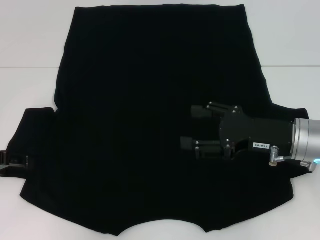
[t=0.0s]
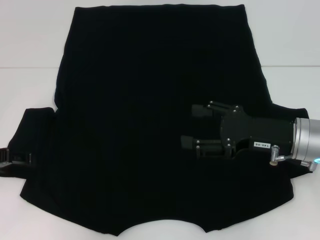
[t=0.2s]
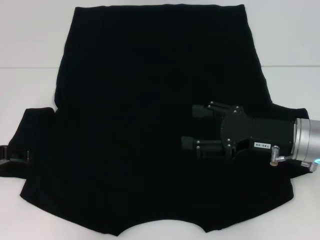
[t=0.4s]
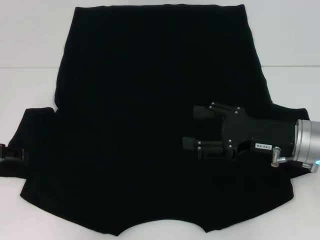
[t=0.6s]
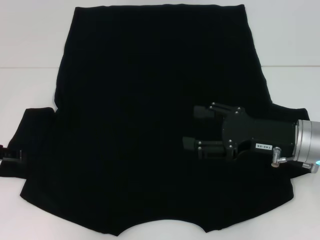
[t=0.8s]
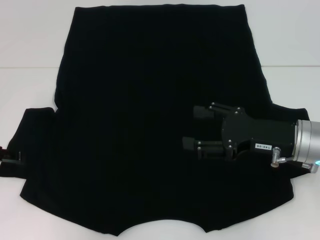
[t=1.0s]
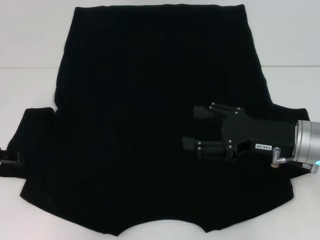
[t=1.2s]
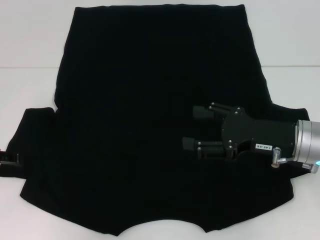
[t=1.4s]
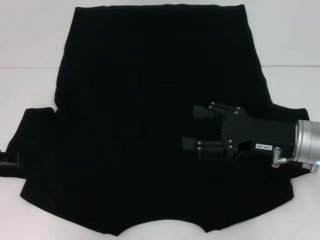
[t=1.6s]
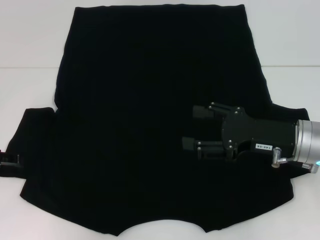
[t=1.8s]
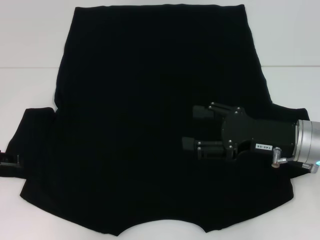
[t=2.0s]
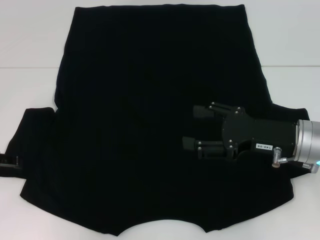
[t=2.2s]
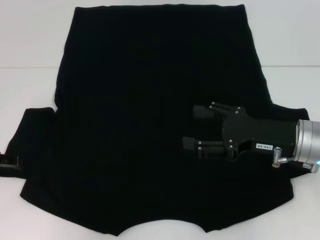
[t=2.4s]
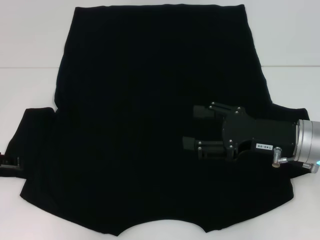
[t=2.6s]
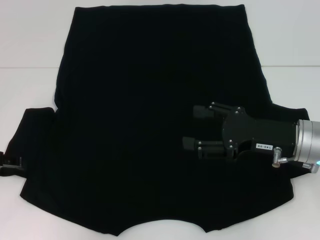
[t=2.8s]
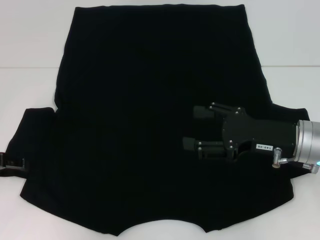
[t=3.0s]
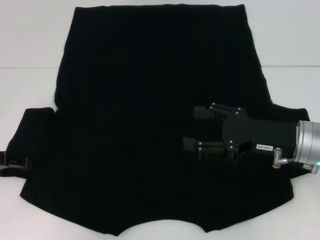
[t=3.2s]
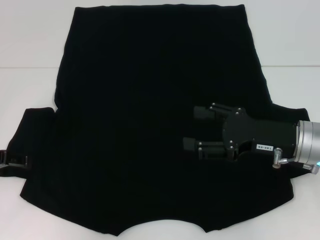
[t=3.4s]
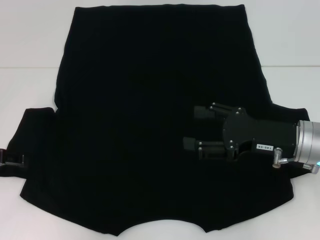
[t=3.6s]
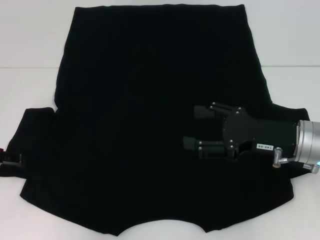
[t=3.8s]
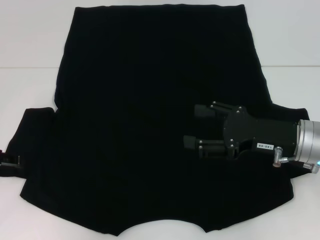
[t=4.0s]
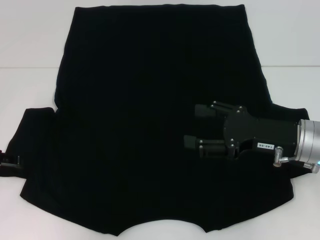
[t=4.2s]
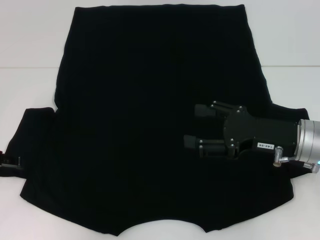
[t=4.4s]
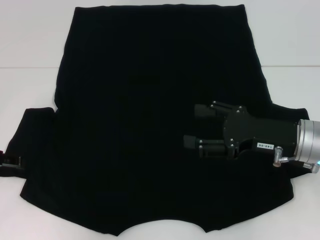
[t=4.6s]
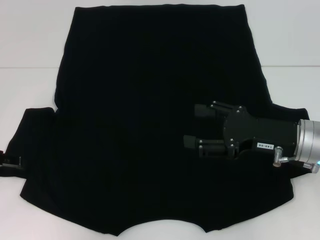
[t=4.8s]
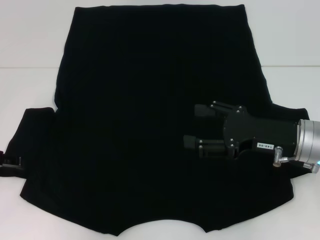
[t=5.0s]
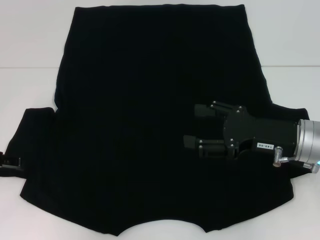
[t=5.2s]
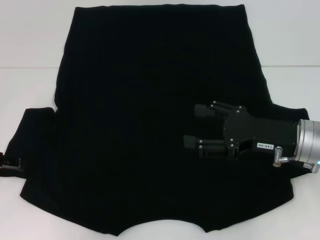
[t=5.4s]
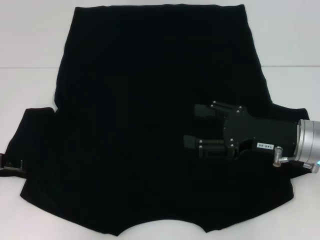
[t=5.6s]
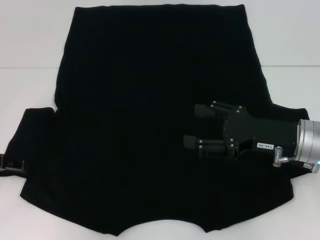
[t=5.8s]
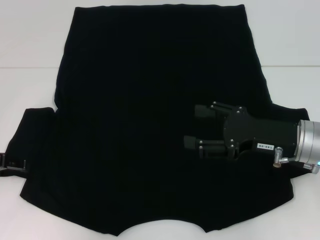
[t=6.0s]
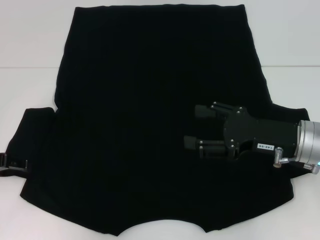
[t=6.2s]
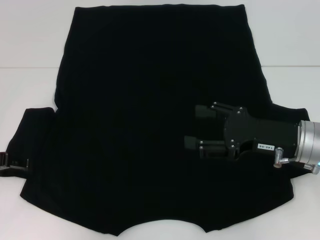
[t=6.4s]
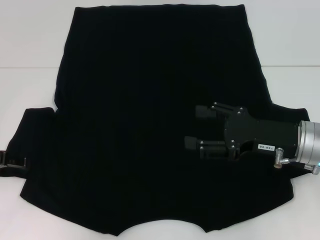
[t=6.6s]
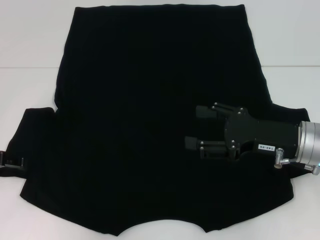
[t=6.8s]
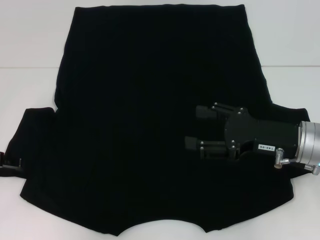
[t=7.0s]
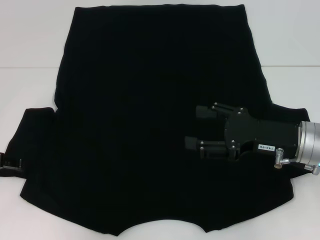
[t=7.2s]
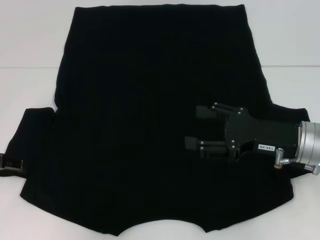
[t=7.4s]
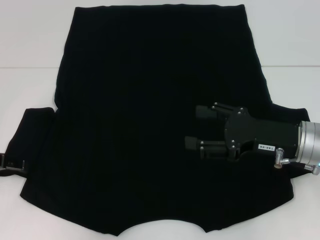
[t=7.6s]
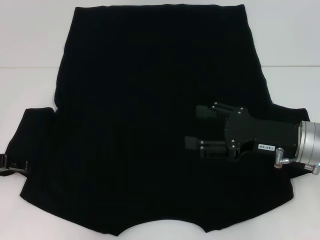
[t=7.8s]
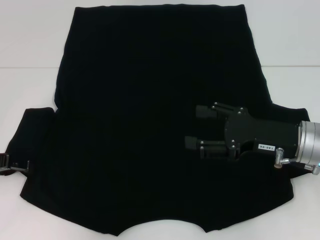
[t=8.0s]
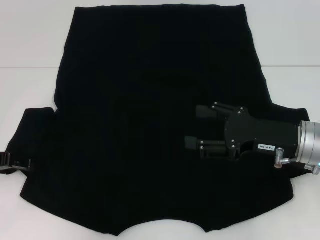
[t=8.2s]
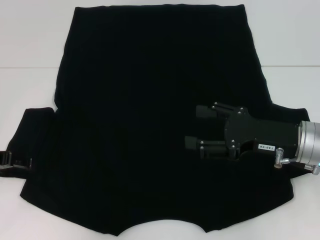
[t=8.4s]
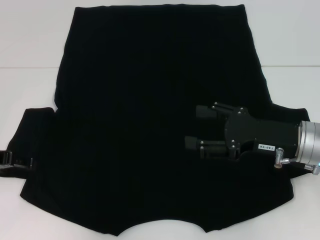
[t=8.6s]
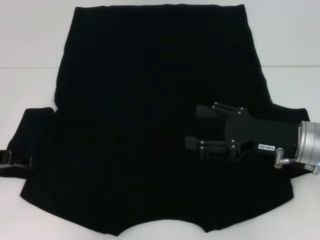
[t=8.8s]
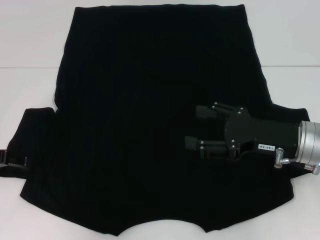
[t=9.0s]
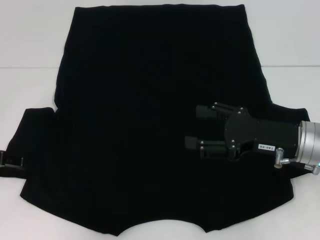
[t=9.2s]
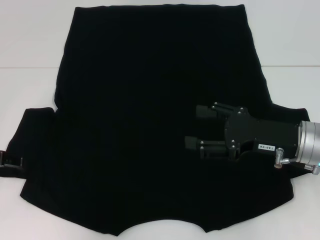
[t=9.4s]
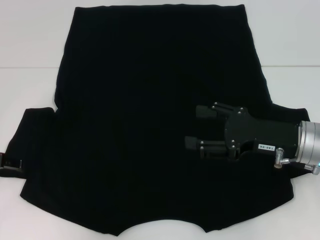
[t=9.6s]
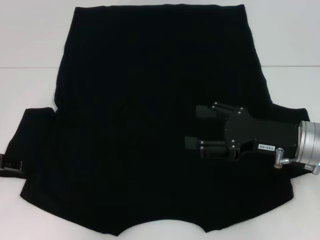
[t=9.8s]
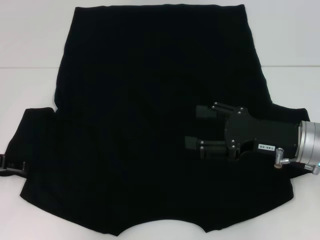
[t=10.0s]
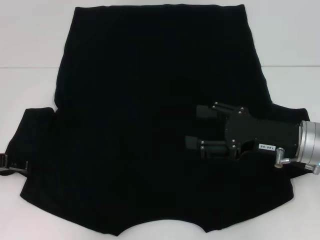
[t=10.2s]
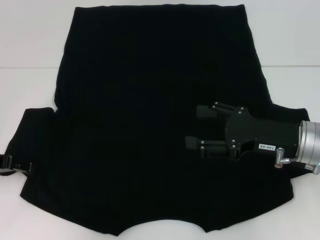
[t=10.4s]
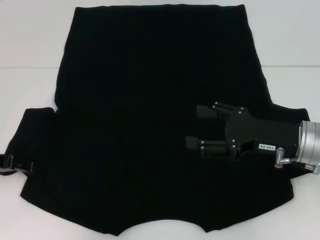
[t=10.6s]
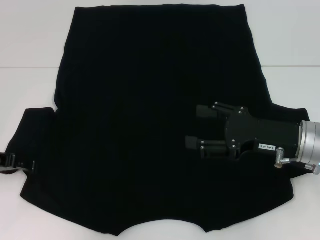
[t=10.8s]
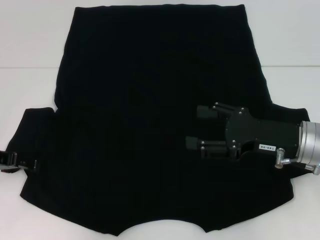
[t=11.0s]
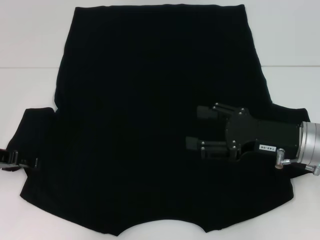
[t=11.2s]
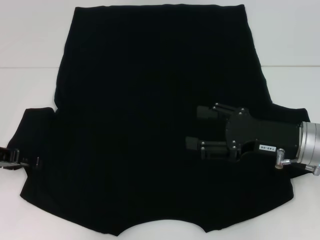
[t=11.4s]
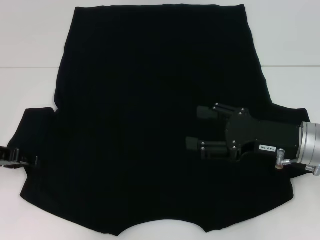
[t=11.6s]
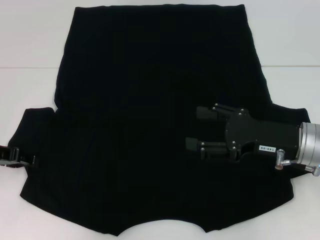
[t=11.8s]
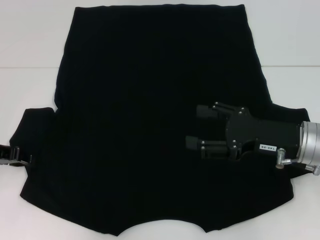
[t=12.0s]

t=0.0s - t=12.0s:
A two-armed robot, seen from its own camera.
t=0.0s - t=4.4s: Both grippers stay about where they are.
t=4.4s - t=7.6s: Both grippers stay put.
t=7.6s - t=10.4s: Both grippers stay about where they are.
t=10.4s - t=12.0s: There are only small adjustments of the grippers.

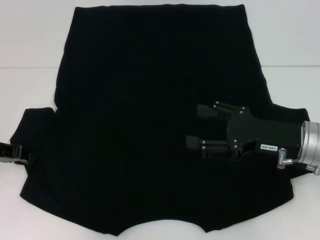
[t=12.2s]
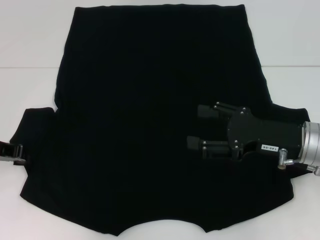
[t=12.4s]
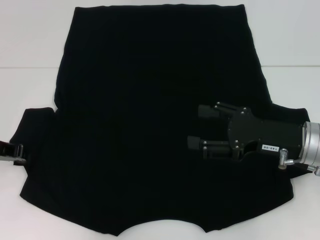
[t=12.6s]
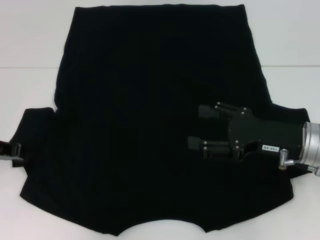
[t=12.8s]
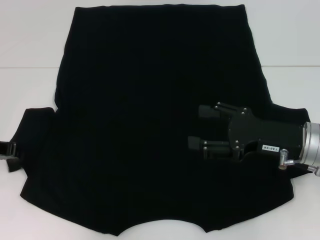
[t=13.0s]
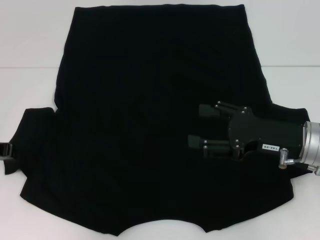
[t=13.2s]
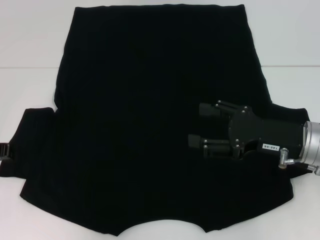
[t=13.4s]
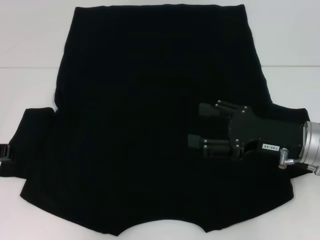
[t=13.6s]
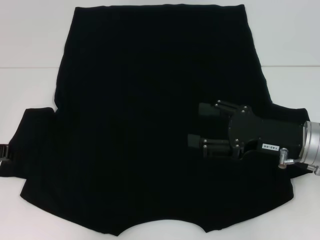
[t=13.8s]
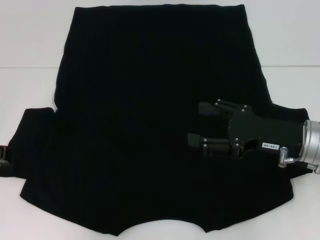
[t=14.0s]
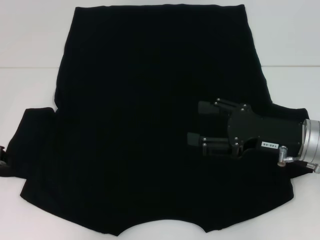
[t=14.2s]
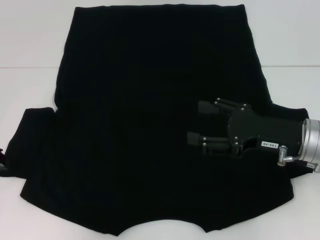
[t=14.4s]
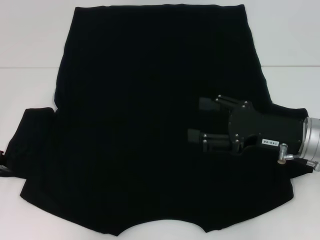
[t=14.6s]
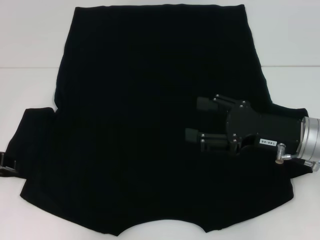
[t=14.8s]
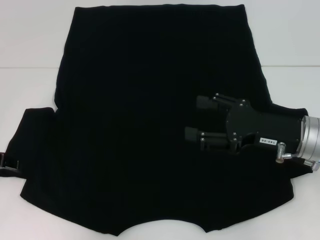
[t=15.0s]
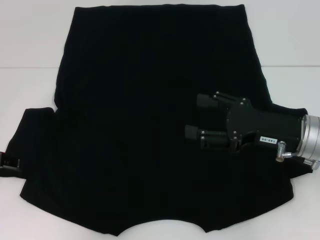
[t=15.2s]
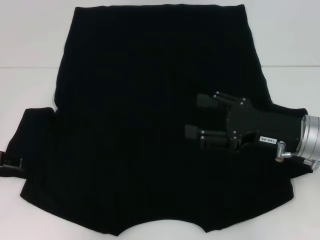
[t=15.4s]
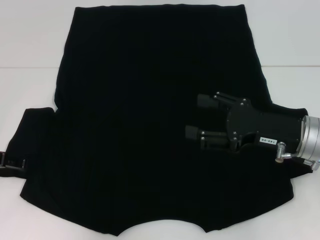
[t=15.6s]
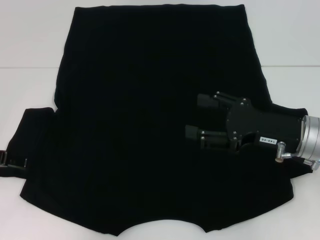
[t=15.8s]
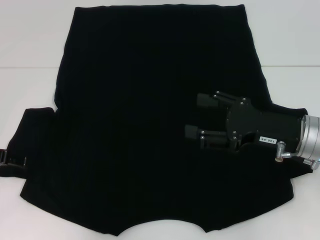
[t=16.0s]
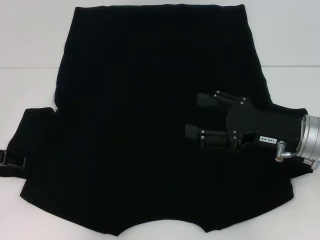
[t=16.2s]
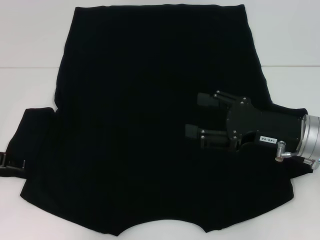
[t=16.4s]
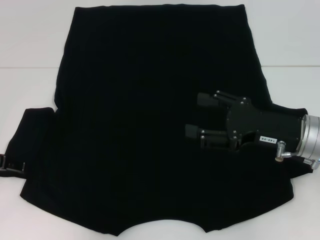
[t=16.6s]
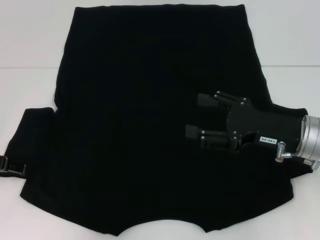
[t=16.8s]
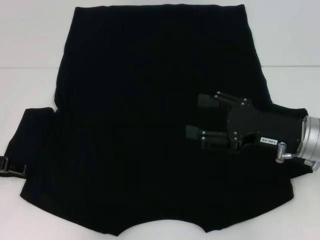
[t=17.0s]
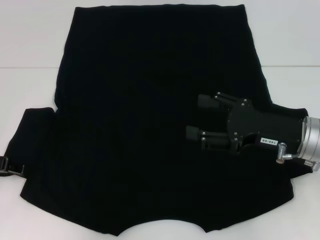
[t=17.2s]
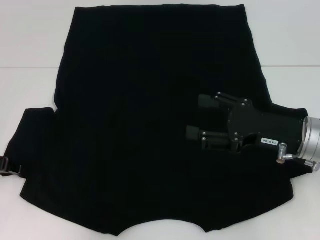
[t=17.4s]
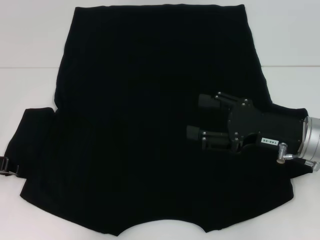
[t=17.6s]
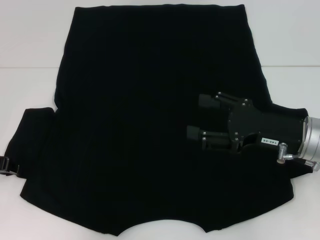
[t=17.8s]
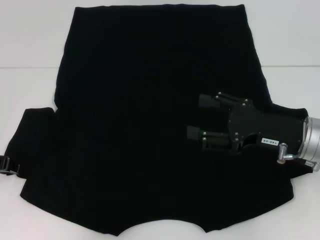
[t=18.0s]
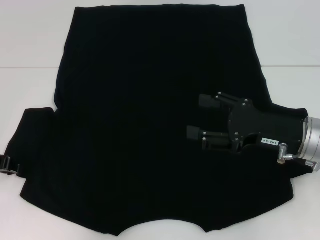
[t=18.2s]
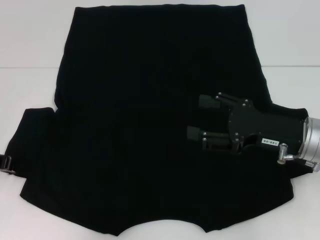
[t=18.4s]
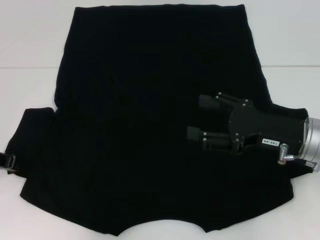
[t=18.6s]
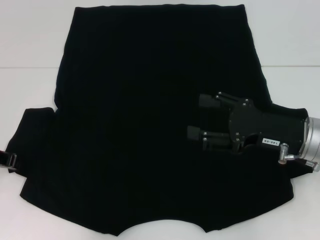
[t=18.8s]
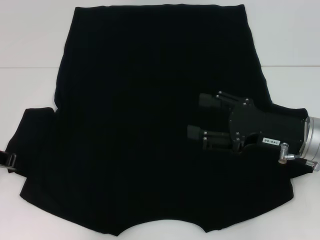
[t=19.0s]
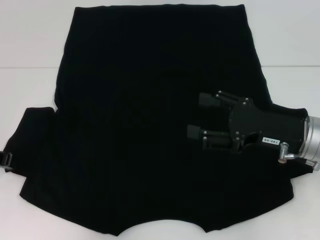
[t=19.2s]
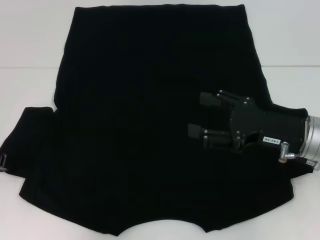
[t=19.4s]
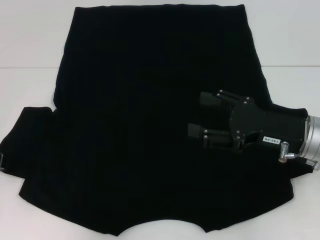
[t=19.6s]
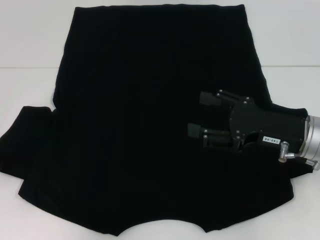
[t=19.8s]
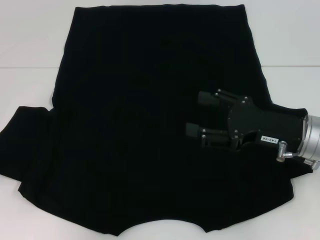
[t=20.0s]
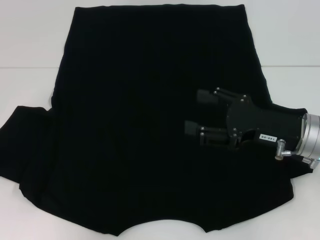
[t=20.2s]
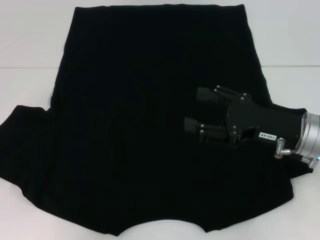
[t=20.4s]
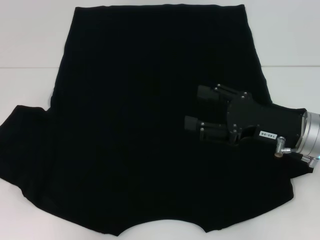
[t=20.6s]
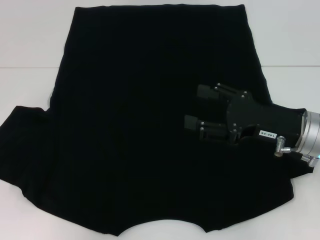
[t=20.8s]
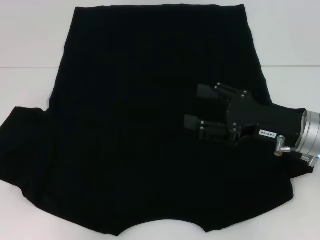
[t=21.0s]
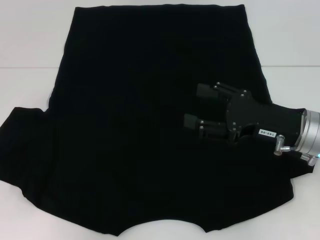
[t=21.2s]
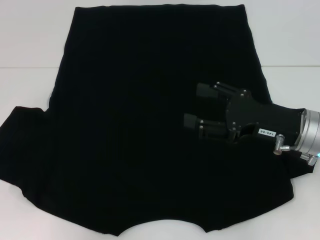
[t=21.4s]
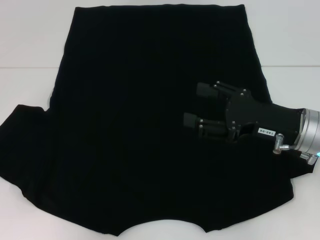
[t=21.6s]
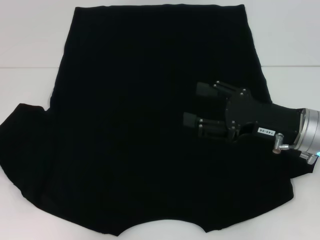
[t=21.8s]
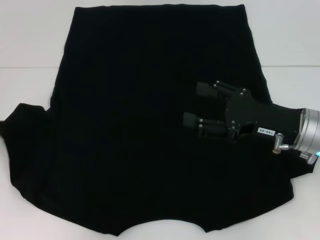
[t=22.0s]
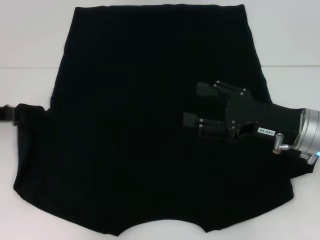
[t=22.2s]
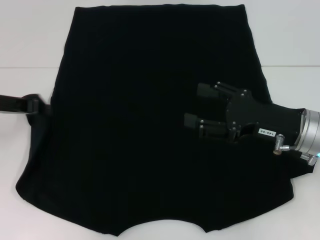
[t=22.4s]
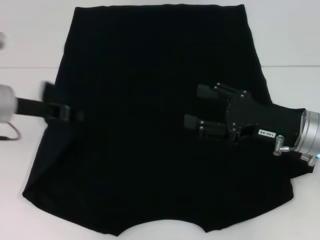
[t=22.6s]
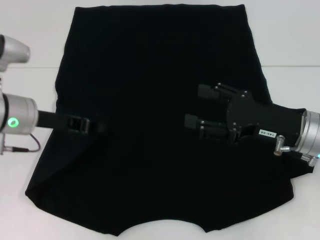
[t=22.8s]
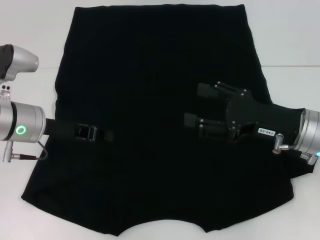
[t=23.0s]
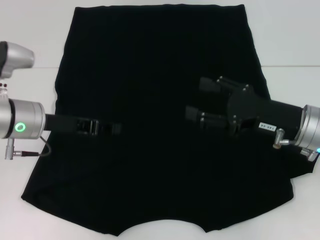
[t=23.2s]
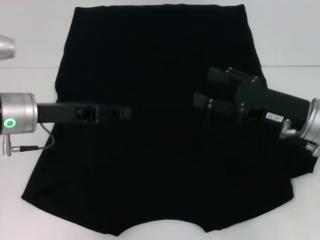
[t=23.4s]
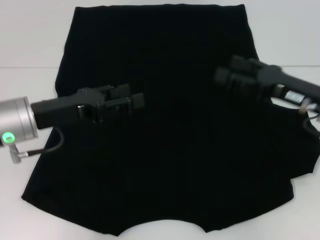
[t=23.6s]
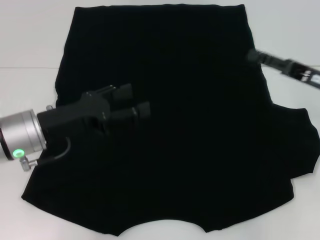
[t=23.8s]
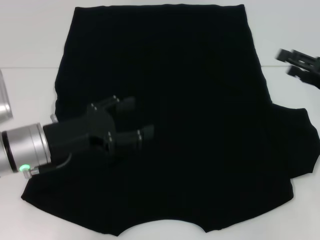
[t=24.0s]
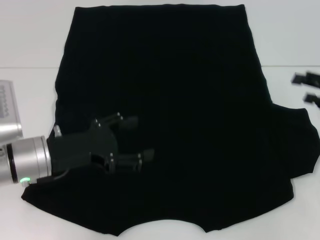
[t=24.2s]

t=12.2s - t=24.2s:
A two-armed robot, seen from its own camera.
Step, t=12.2s - t=24.0s: Fold the bottom left sleeve with your left hand.
t=12.2s - t=13.8s: The left gripper closes its fingers.
t=18.2s - t=21.2s: There are only small adjustments of the grippers.
t=21.2s - t=22.6s: The left gripper heads to the right and forward, covering some 10 cm.
t=22.6s - t=24.2s: The right gripper travels to the right by approximately 15 cm. The left gripper is displaced backward and downward by roughly 10 cm, and opens.
